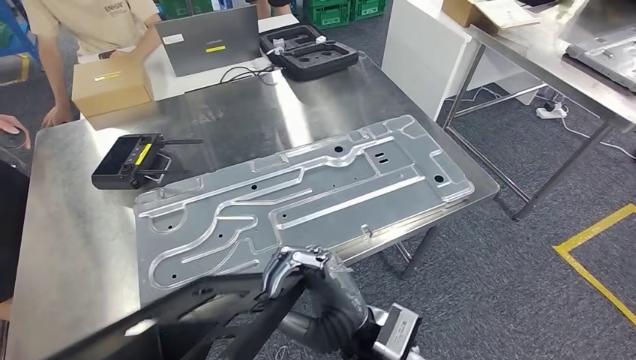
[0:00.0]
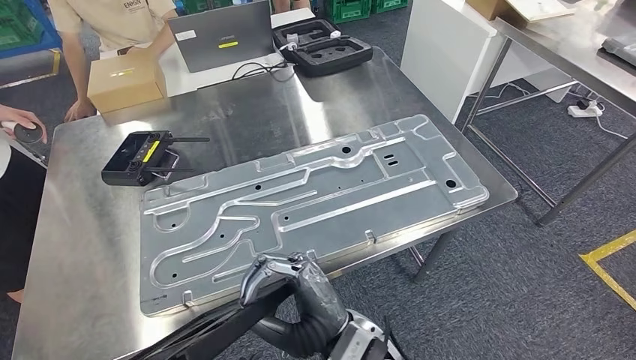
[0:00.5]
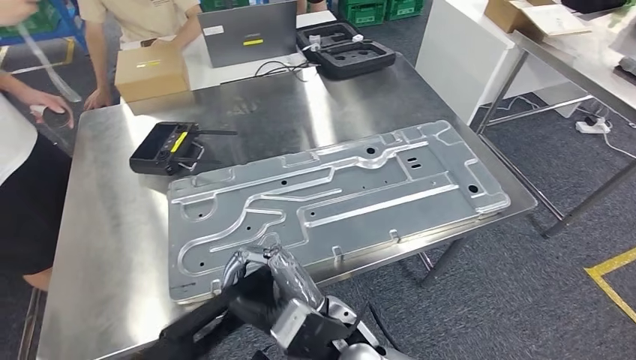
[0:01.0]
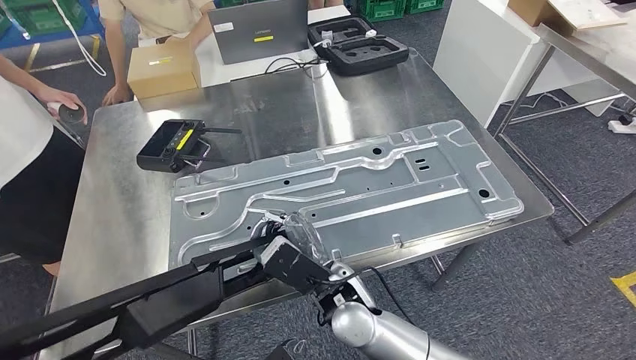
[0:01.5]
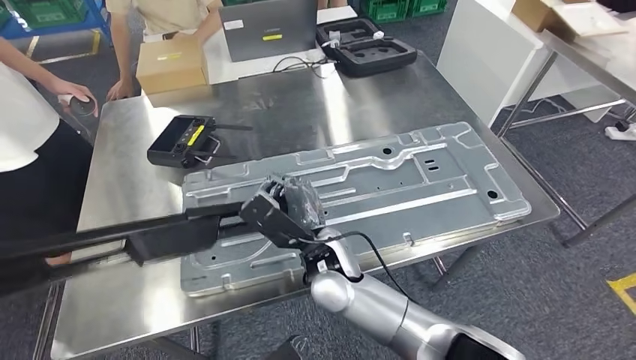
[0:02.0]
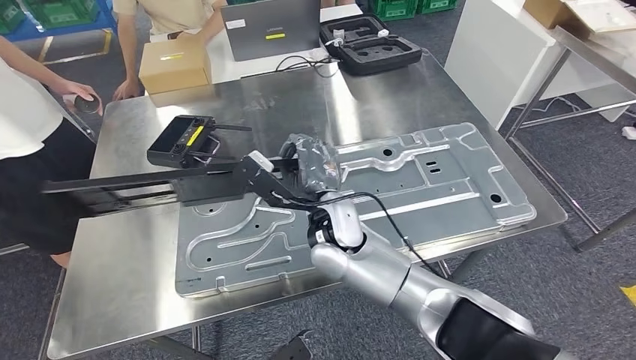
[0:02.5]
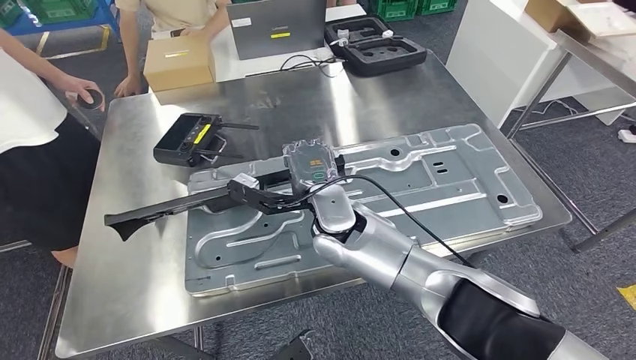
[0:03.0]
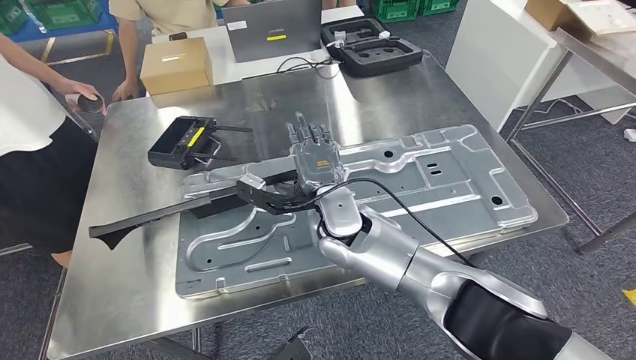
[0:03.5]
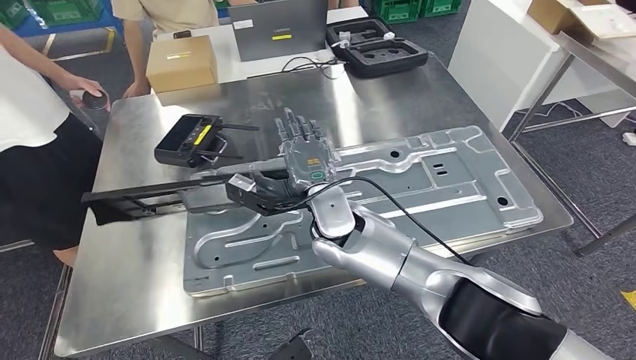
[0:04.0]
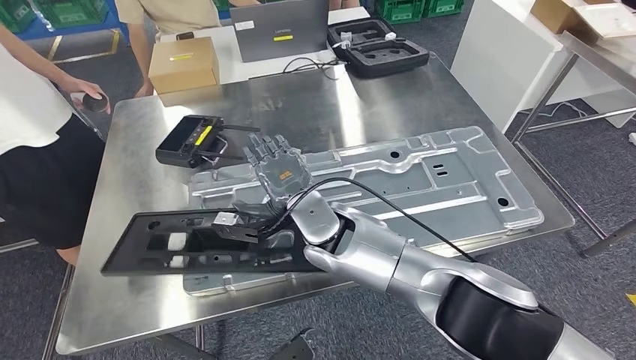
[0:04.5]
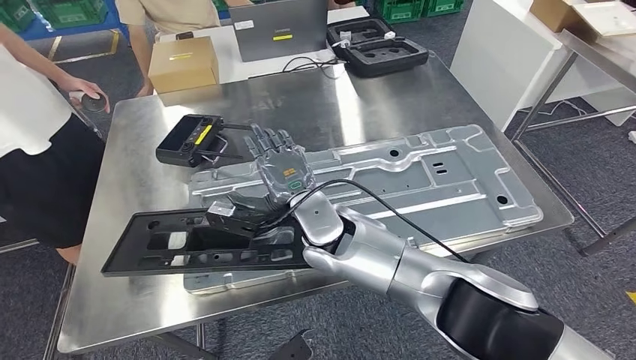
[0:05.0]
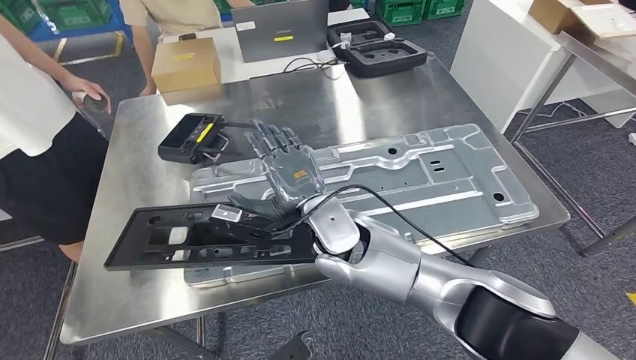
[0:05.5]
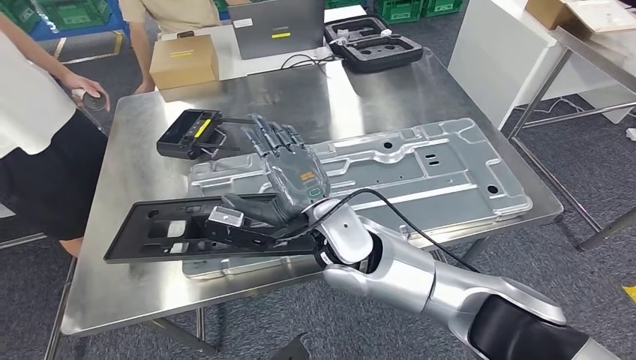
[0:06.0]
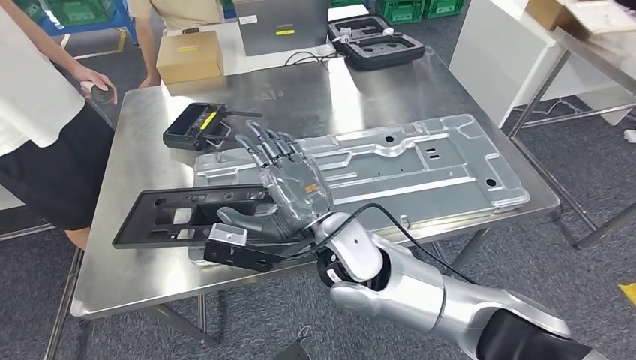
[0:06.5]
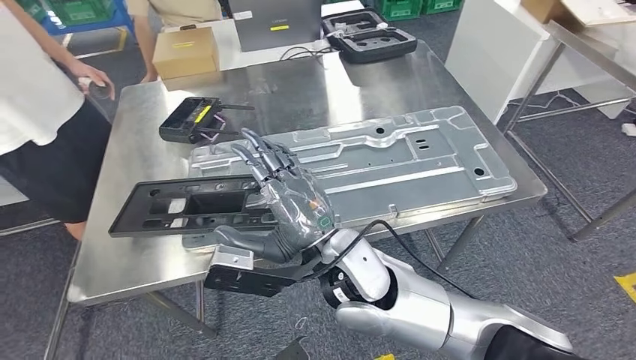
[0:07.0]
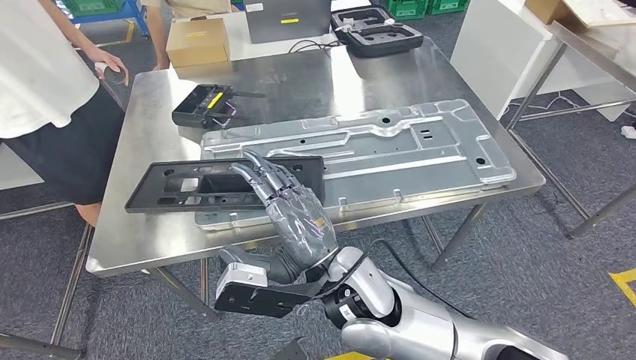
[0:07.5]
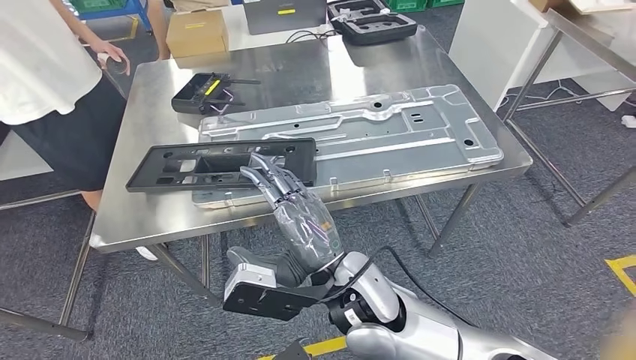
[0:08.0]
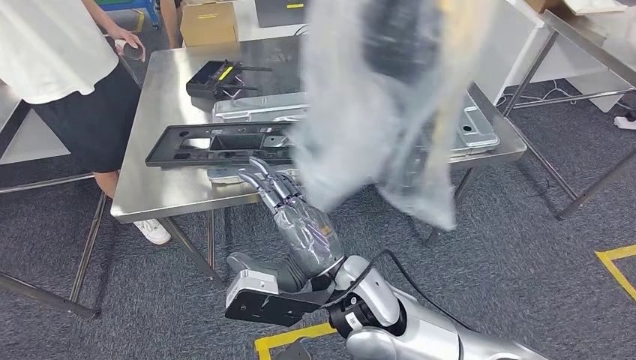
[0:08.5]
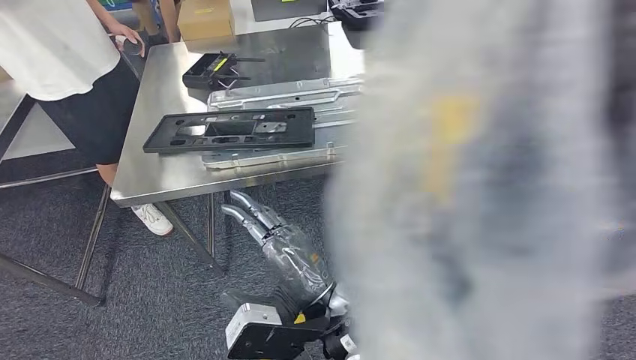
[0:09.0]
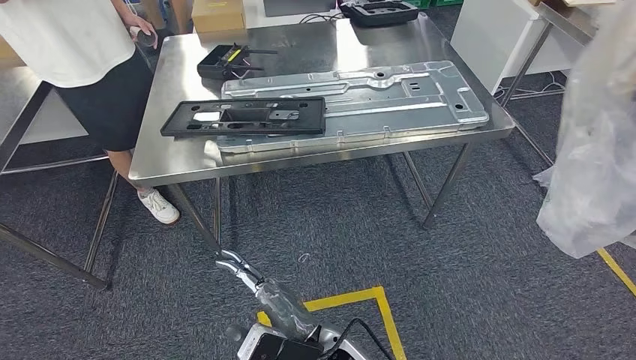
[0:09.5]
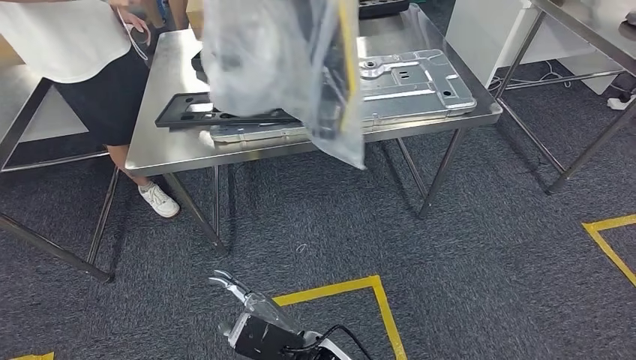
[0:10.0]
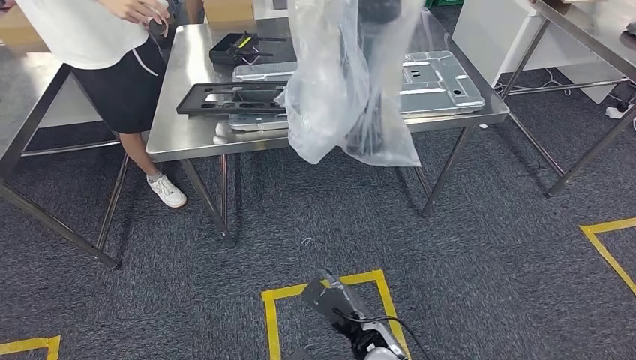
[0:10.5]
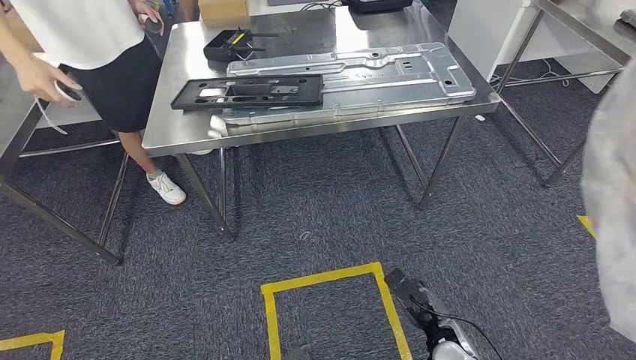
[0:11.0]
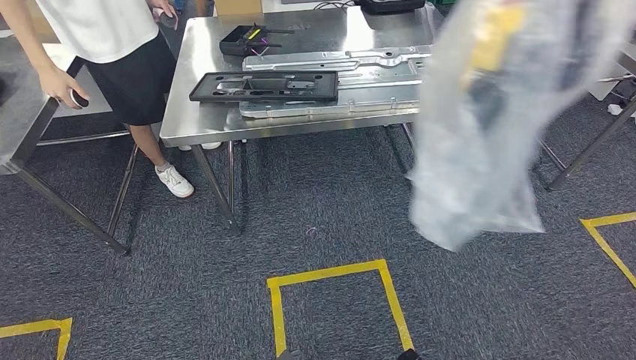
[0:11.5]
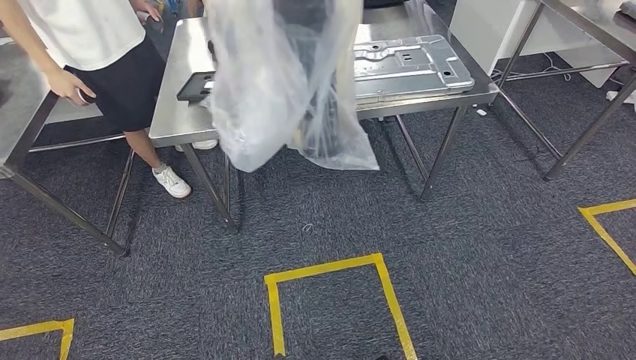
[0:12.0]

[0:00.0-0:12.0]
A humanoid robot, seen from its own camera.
Step, 0:00.5 to 0:08.0: Insert the large material into the corresponding slot on the workbench.

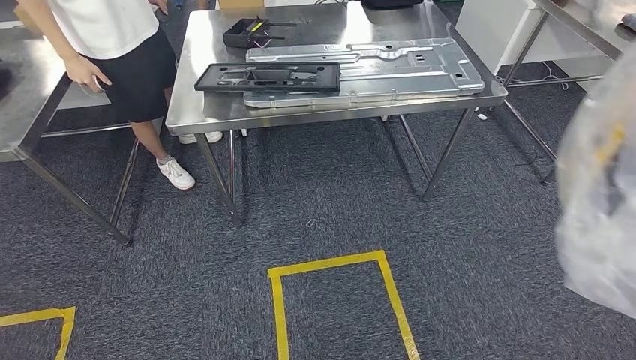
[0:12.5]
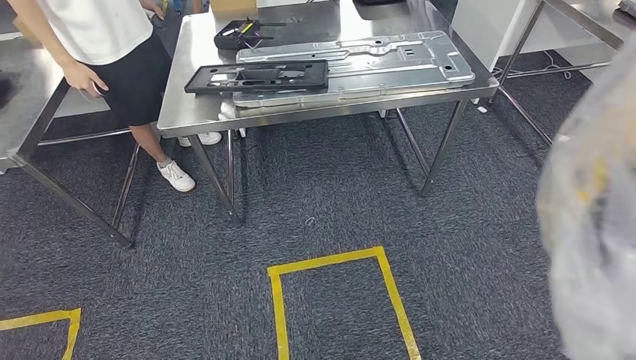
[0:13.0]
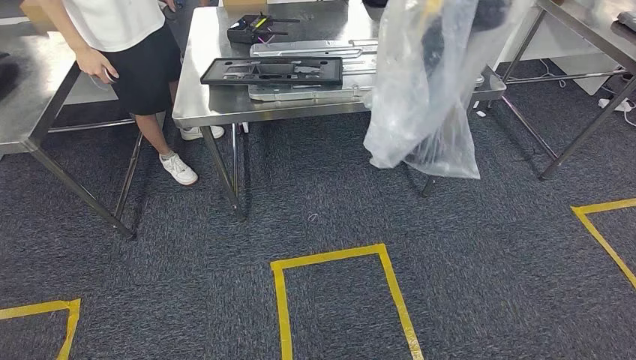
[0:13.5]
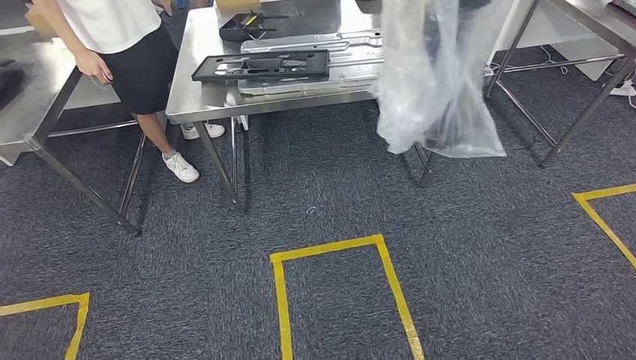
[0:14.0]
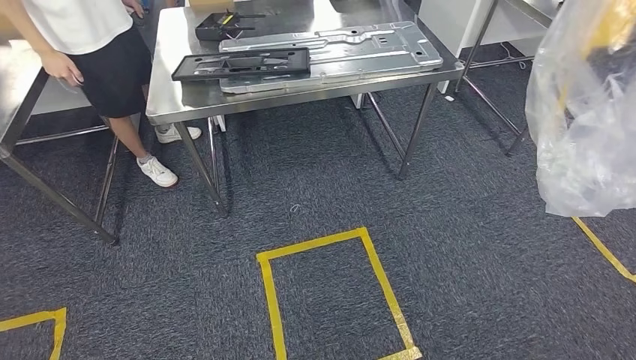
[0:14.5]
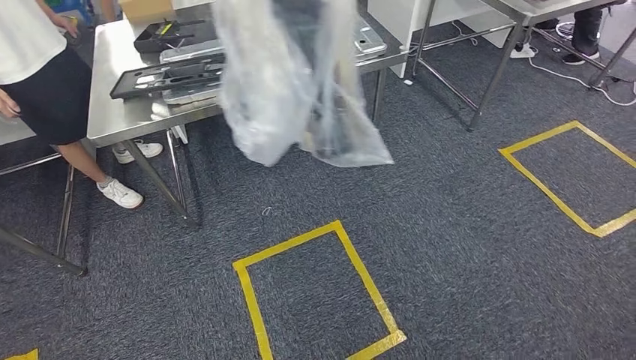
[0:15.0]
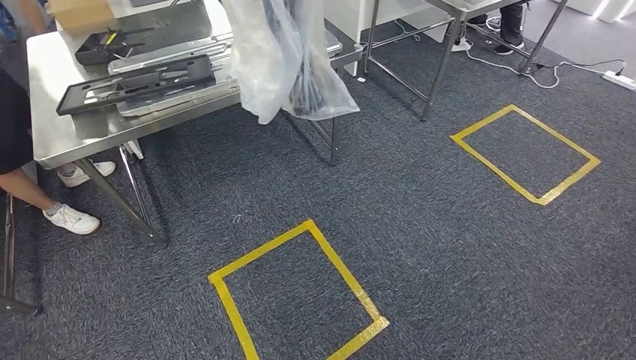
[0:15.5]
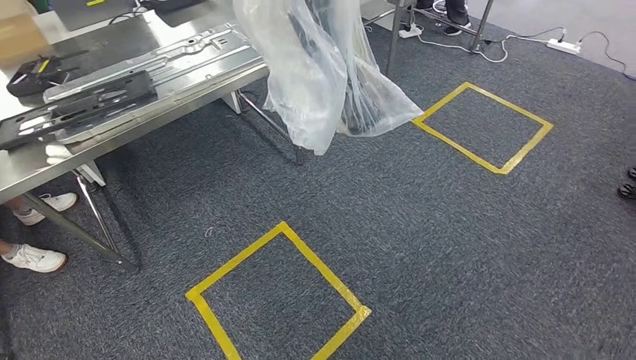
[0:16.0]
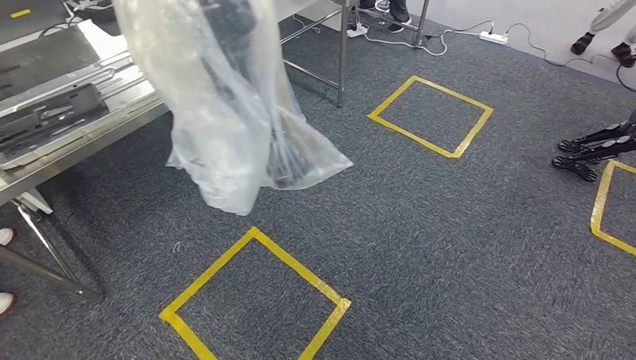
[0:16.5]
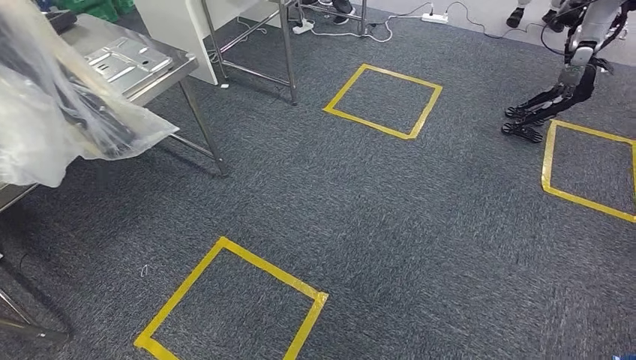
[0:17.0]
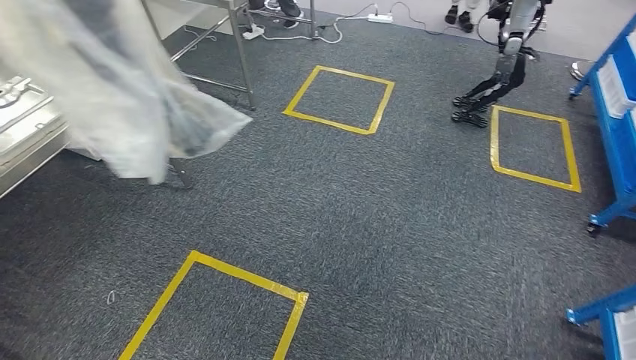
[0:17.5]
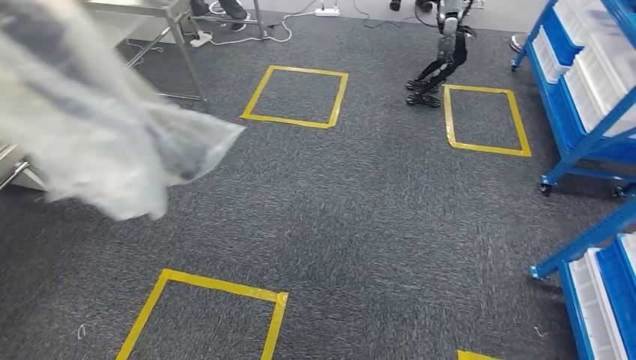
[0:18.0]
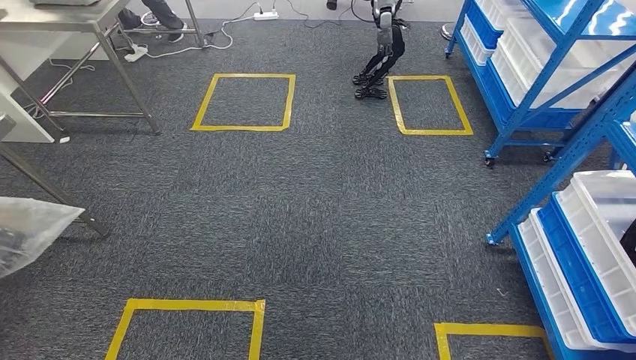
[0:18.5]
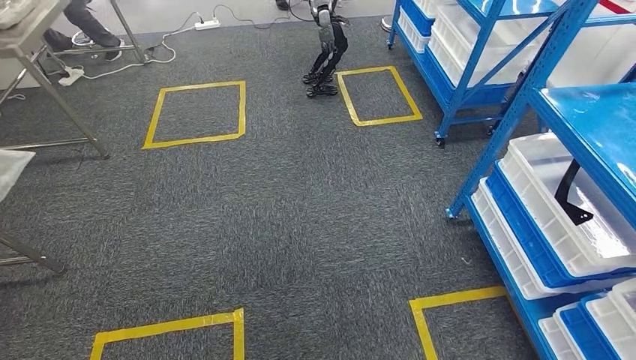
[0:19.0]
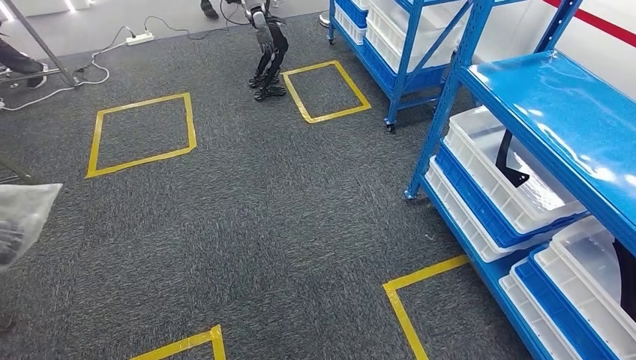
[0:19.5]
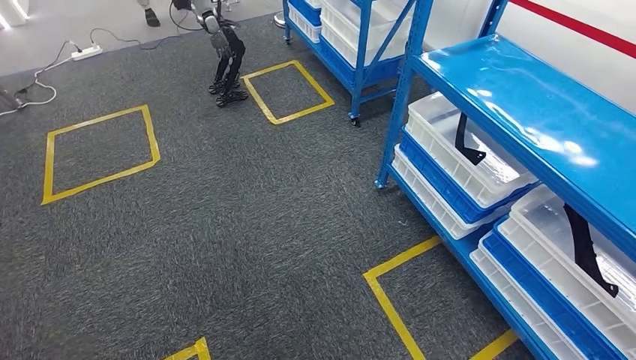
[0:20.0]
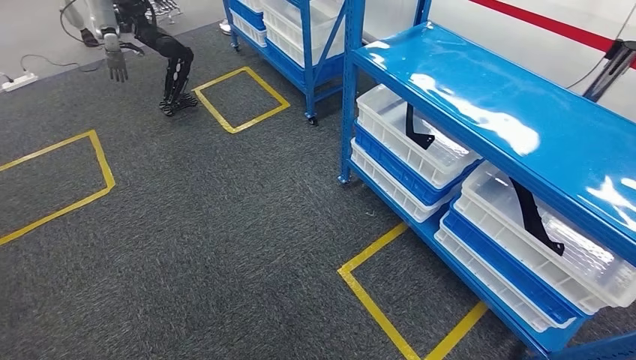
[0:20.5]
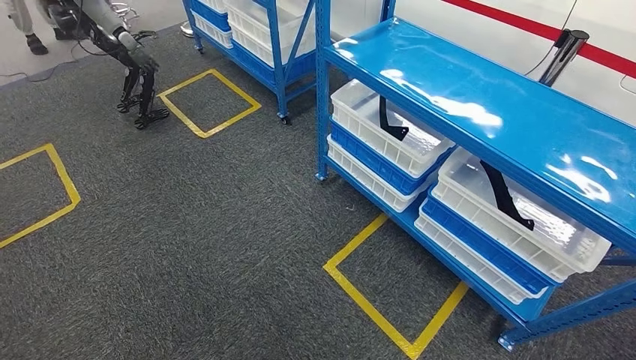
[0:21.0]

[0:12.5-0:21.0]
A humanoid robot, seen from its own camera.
Step, 0:12.5 to 0:21.0: Return to the initial position at the shelf.
